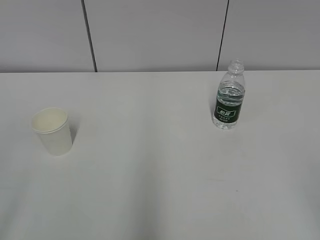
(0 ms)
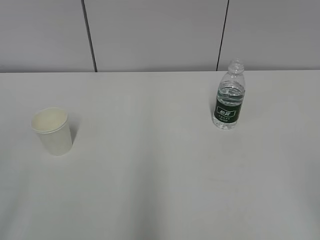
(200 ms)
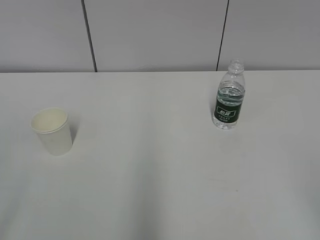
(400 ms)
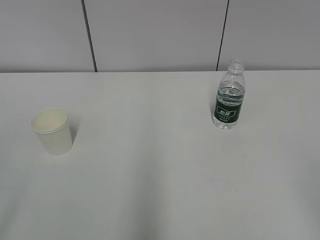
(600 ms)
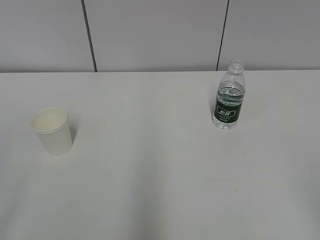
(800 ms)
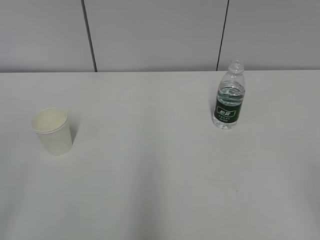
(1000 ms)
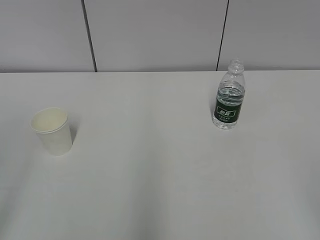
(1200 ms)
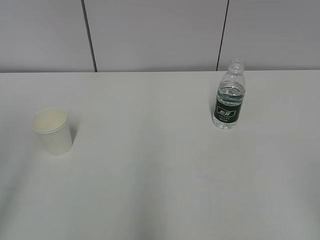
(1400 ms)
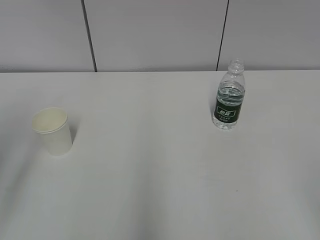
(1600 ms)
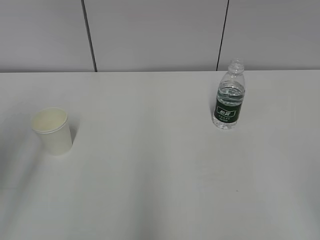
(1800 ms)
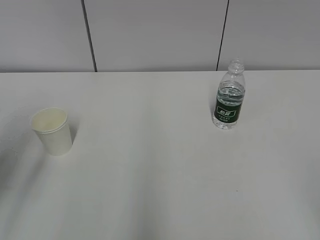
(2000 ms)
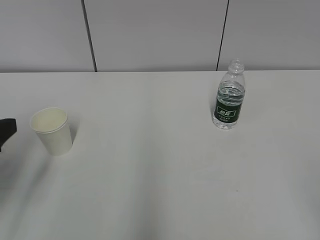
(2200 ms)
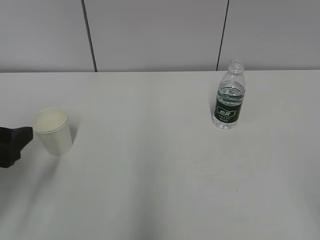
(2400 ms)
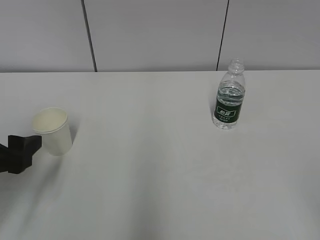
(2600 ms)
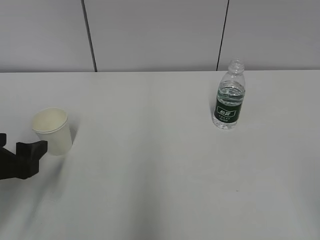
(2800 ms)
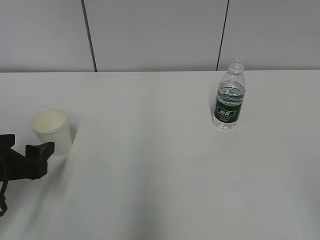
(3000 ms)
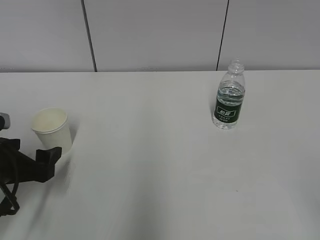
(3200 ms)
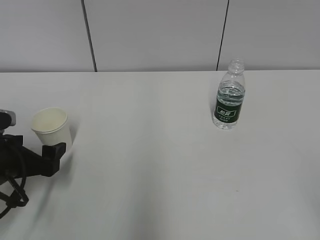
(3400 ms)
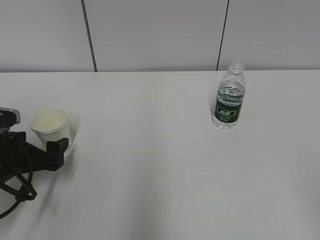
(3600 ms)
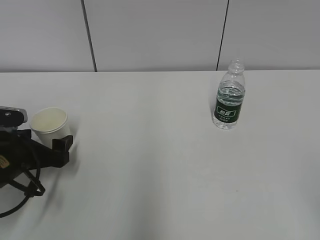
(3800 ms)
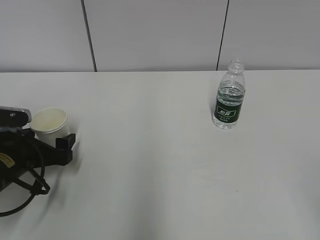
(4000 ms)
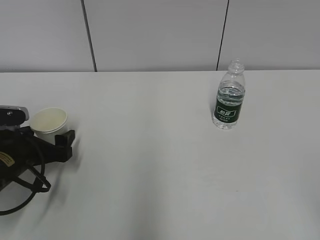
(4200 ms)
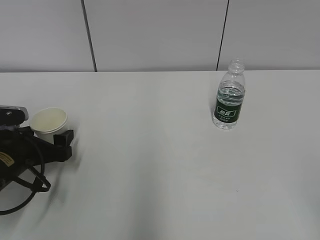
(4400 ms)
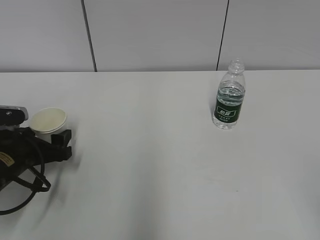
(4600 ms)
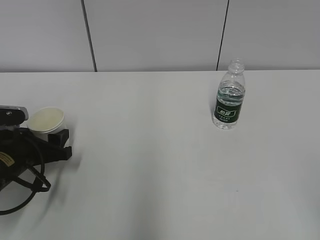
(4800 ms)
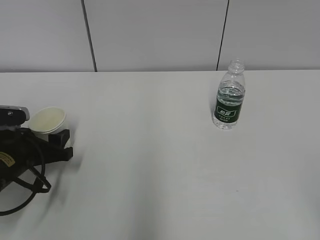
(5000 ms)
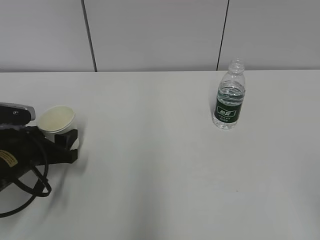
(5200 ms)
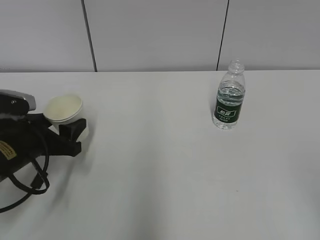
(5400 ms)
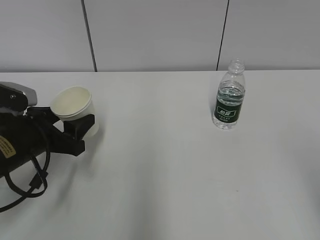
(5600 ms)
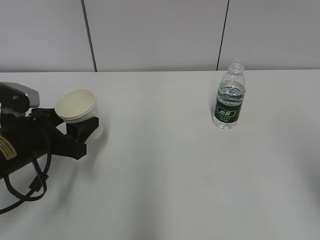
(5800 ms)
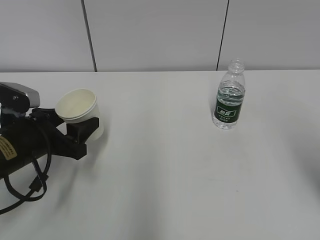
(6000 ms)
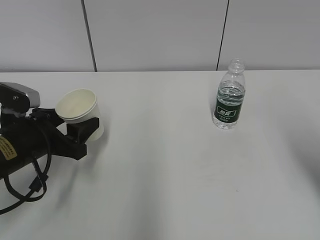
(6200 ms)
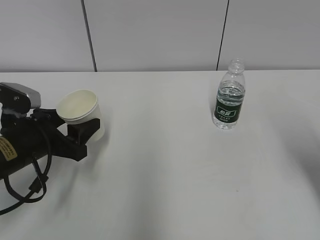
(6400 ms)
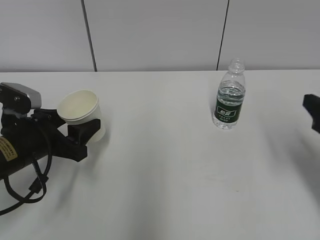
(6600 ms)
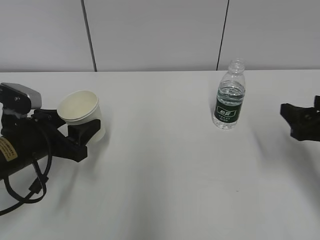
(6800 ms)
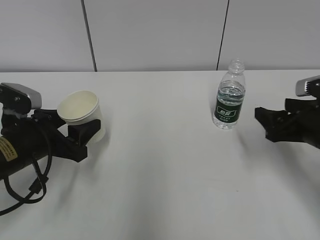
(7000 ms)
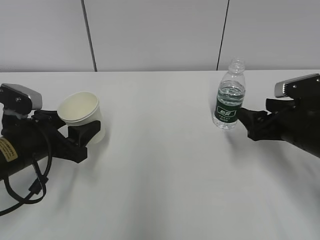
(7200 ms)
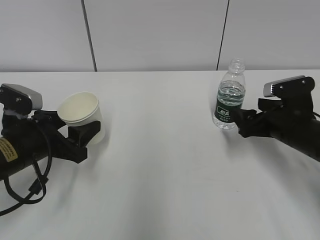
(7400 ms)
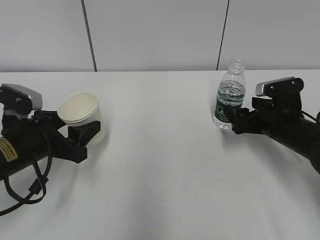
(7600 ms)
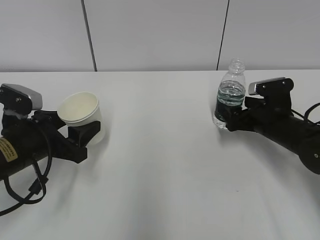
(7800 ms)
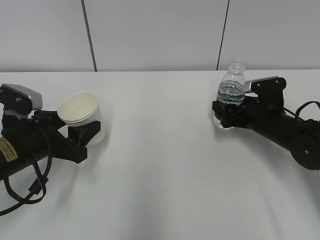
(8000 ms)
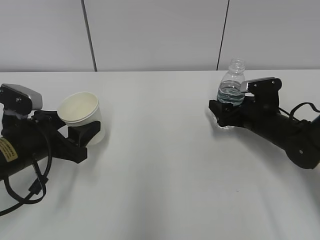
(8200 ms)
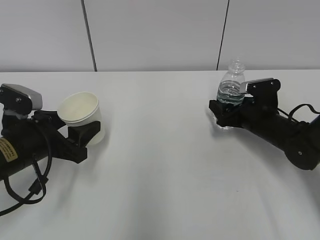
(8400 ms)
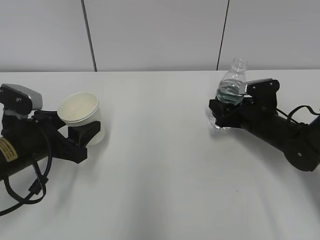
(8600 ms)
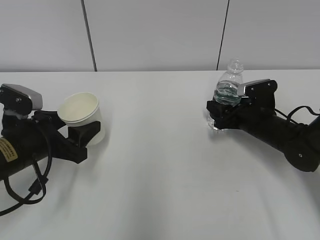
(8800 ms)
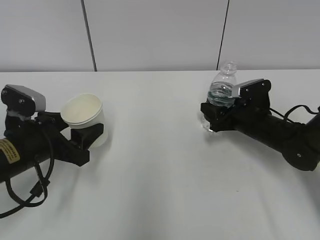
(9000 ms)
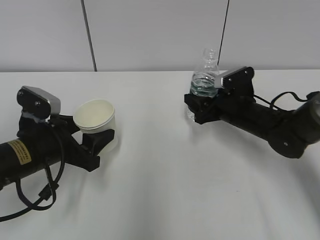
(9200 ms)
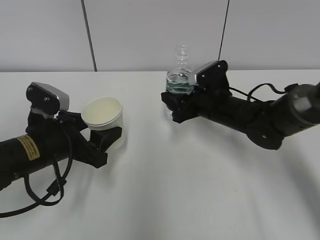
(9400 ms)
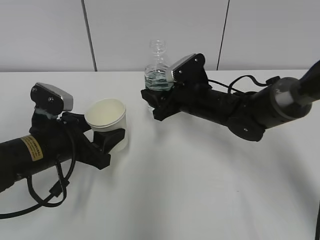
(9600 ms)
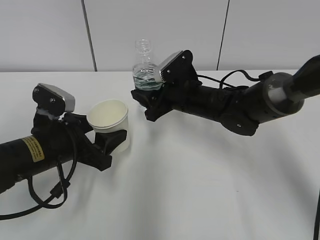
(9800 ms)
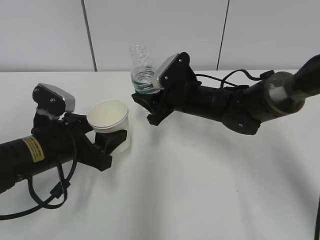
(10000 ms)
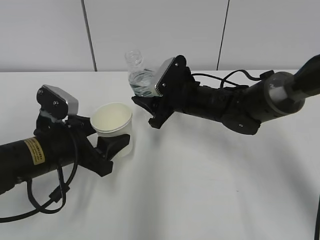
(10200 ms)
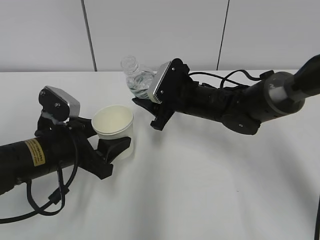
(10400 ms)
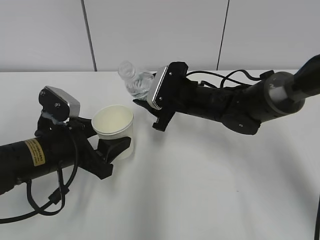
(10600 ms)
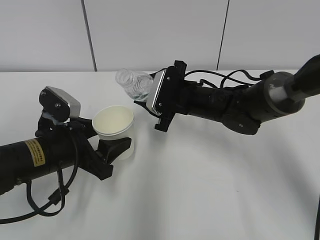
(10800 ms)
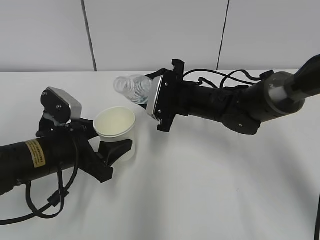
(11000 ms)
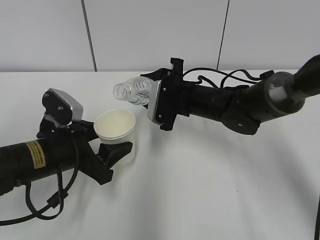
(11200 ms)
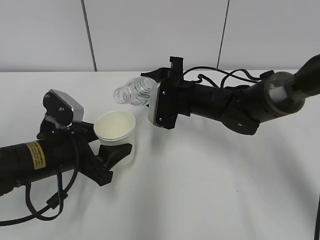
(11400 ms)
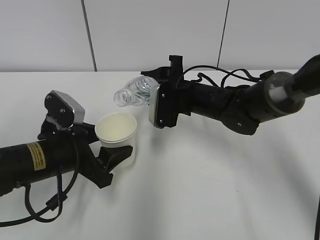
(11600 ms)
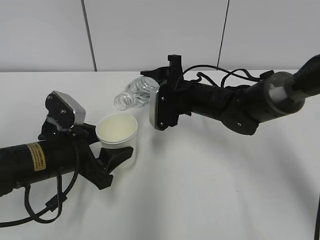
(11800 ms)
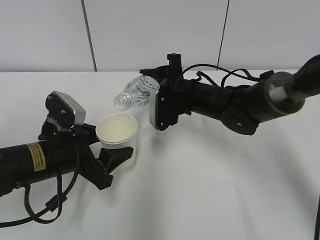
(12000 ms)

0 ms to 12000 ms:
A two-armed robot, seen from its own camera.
Step, 0 ms to 4000 ms: Grab the paper cup with the left hand.
Step, 4200 ms to 7400 ms: Grab the water bottle with the right hand.
Step, 7600 ms to 10200 ms: Lift the paper cup with the left hand.
1600 ms to 3000 ms: The left gripper moves downward and forward, about 20 cm.
3000 ms to 4400 ms: The left gripper goes about 10 cm forward and downward.
4400 ms to 6000 ms: The left gripper ends up roughly 5 cm from where it was, and closes up.
6000 ms to 7600 ms: The right gripper shifts approximately 30 cm forward and downward, and opens.
7600 ms to 9000 ms: The right gripper moves some 5 cm, and closes its fingers.
9000 ms to 10400 ms: The right gripper goes some 15 cm to the left and upward.

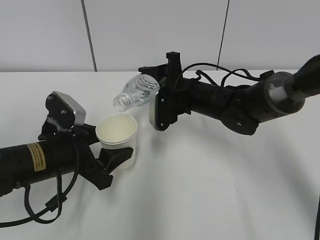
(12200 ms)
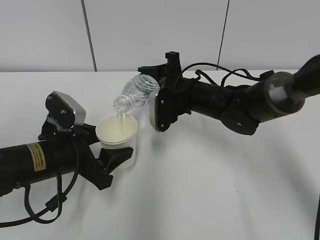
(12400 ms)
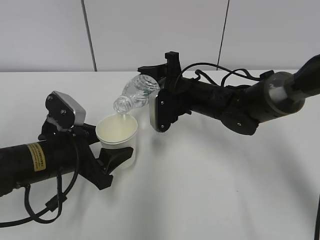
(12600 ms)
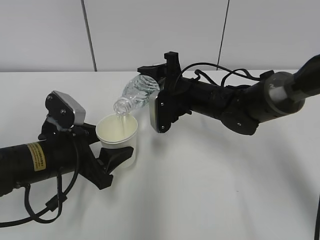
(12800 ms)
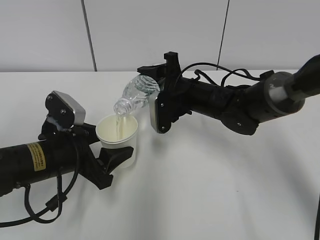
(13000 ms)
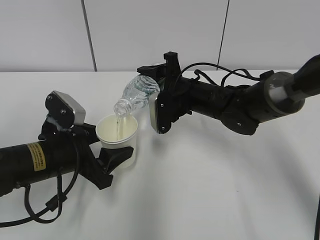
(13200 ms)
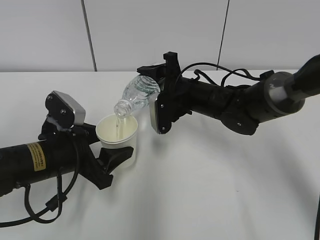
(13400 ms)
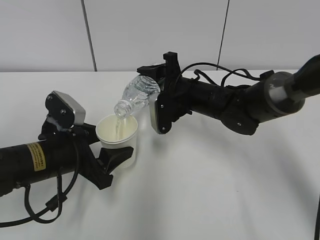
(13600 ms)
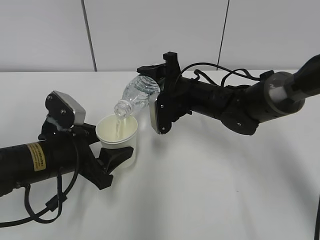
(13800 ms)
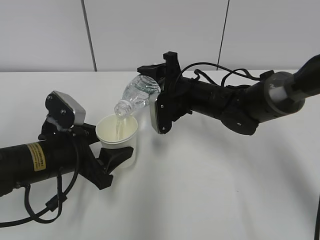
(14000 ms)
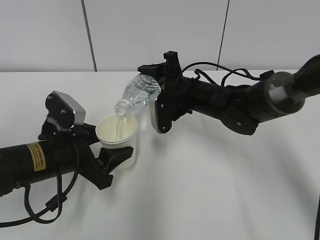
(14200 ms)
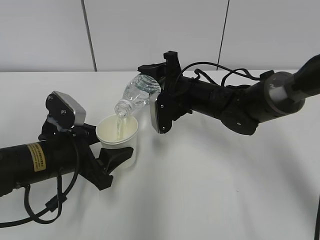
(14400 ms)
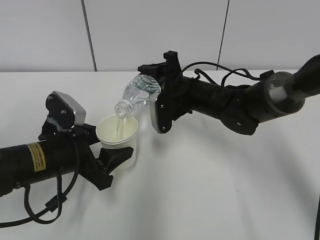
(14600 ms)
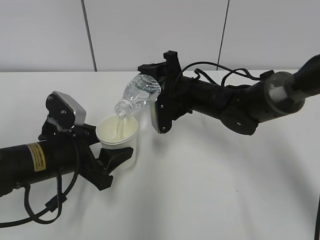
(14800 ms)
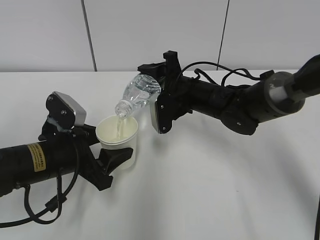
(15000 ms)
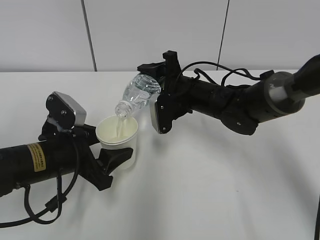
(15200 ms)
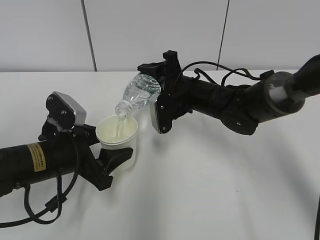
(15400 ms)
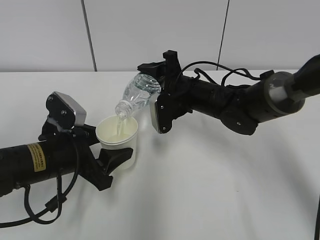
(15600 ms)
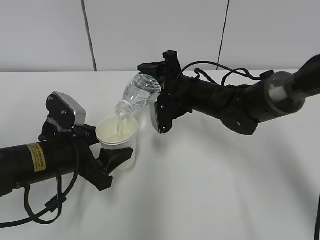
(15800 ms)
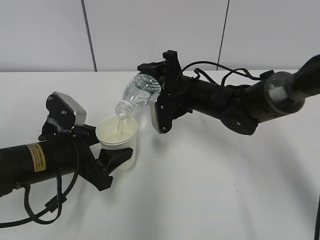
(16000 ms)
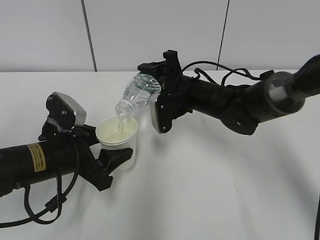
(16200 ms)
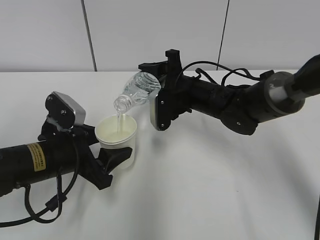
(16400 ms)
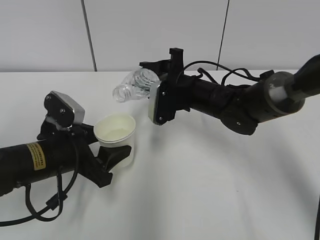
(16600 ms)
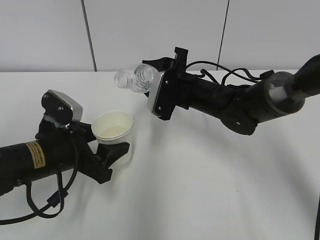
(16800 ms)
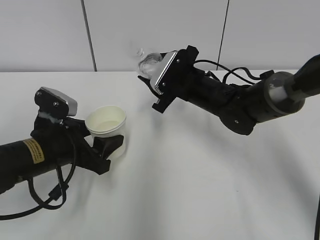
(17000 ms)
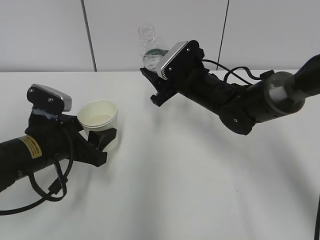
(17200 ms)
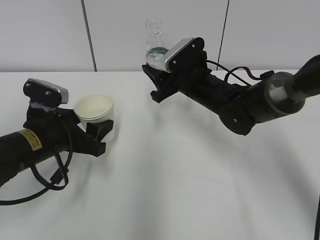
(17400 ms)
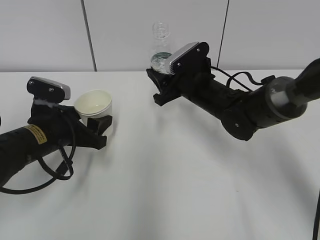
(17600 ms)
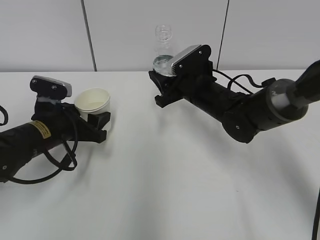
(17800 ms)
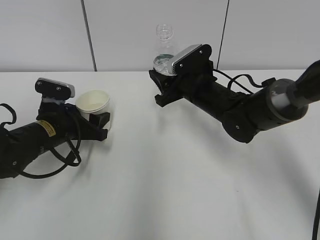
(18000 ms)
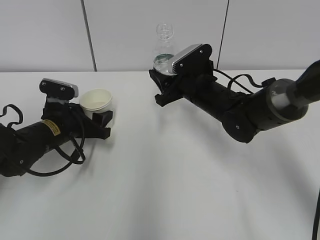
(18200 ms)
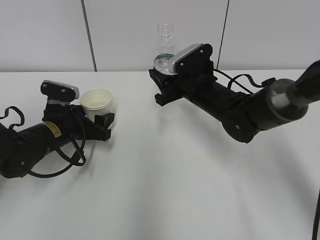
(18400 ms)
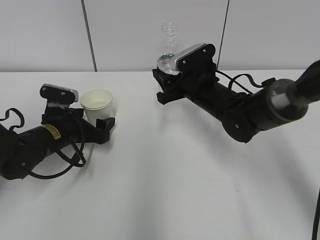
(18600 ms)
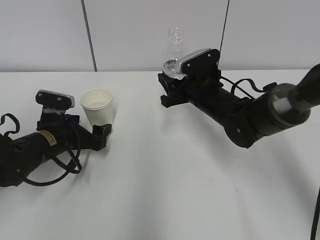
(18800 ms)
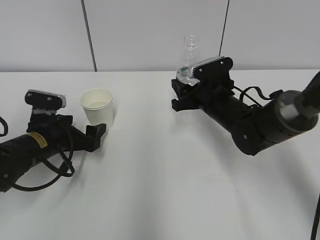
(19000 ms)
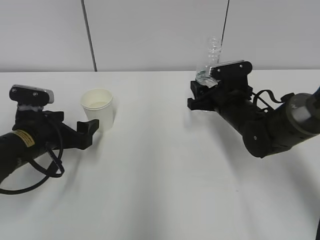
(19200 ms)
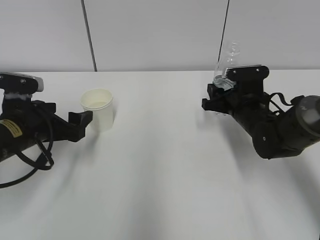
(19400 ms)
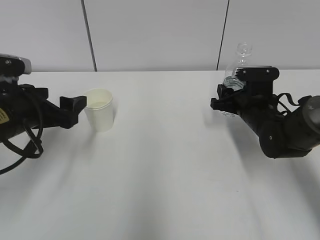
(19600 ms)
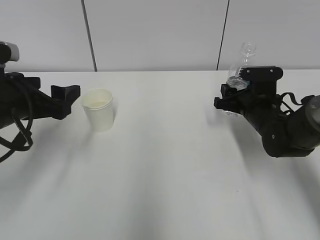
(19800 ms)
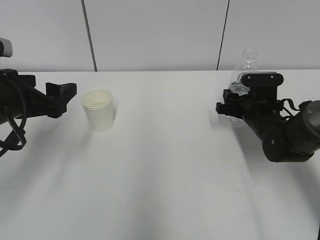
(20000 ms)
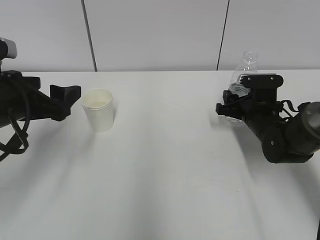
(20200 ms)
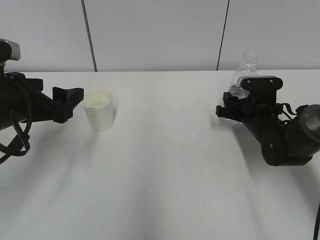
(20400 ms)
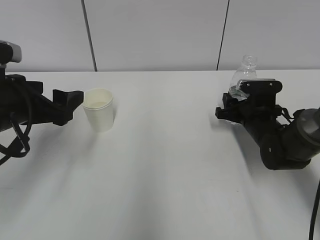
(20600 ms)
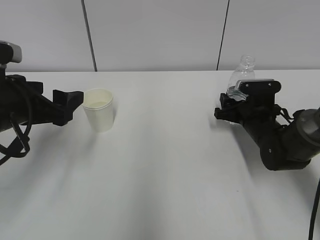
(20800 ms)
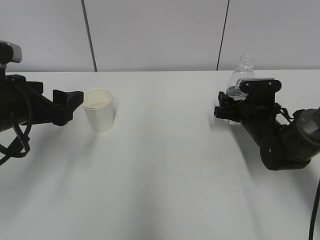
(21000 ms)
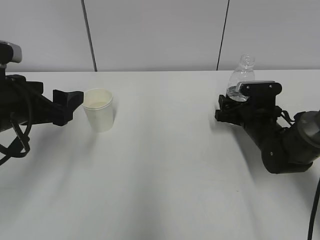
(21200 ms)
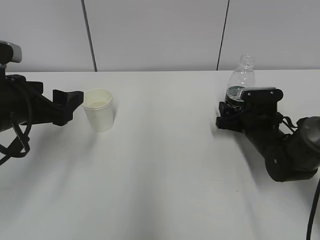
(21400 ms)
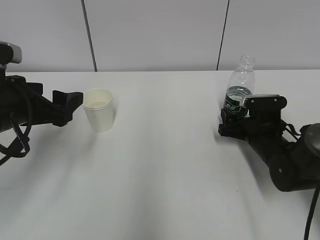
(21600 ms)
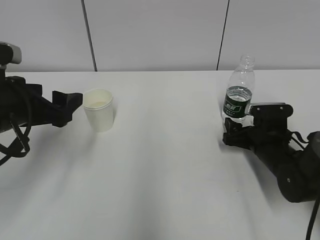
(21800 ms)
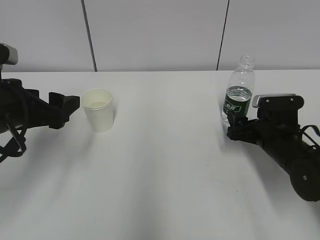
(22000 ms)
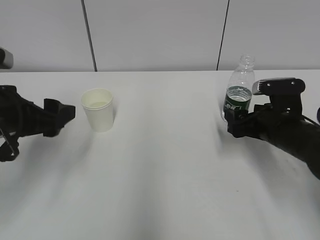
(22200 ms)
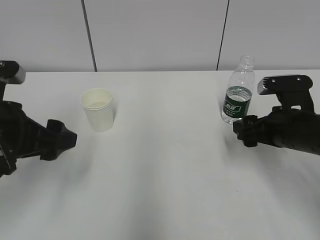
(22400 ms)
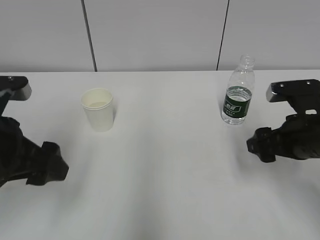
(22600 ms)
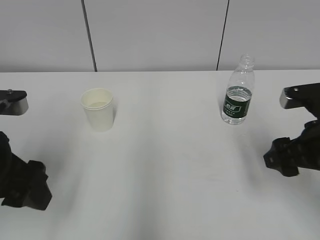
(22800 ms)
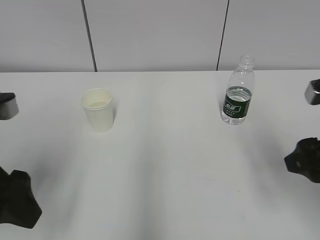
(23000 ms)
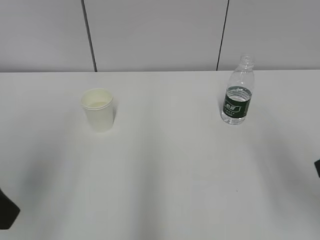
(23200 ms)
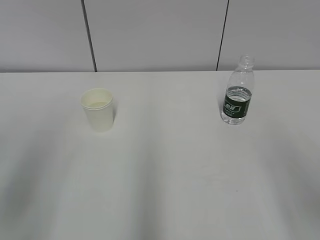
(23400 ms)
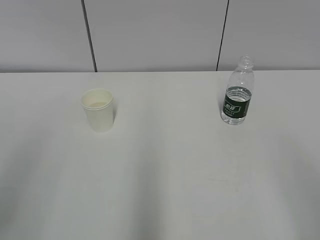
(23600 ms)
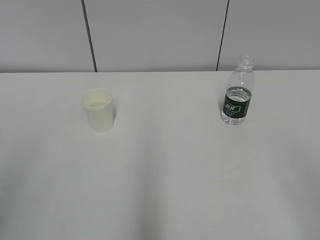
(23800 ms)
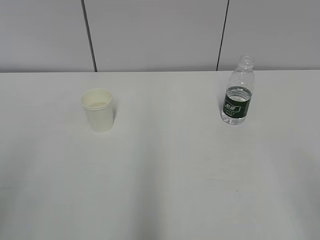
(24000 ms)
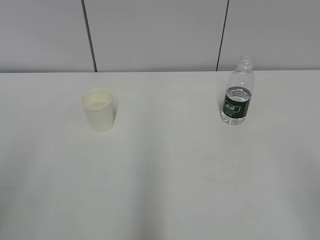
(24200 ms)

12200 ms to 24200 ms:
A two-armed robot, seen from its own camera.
Step, 15400 ms to 17400 ms: Place the water bottle with the right hand.
12200 ms to 13800 ms: There are only small adjustments of the grippers.
13800 ms to 15200 ms: Neither gripper changes place.
15200 ms to 16600 ms: The grippers stay close to where they were, moving slightly.
16600 ms to 18200 ms: The left gripper travels forward by approximately 10 cm.
18200 ms to 19800 ms: The left gripper heads upward and backward, covering some 15 cm, and opens up; the right gripper goes about 10 cm to the right.
19800 ms to 21200 ms: The right gripper opens.
21200 ms to 22600 ms: The right gripper shifts approximately 15 cm backward and upward; the left gripper is displaced backward by some 5 cm.
22600 ms to 24200 ms: The left gripper travels backward and to the left by approximately 20 cm; the right gripper is displaced backward and upward by roughly 25 cm.
